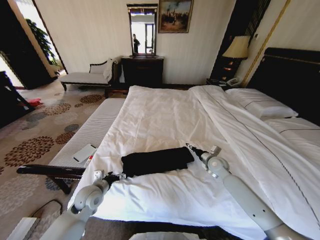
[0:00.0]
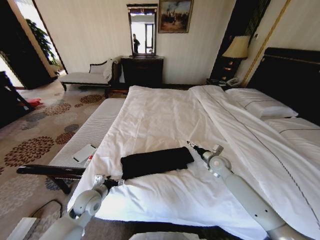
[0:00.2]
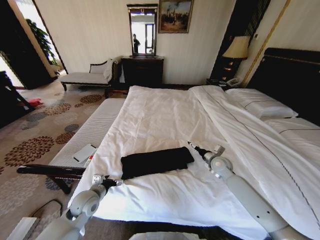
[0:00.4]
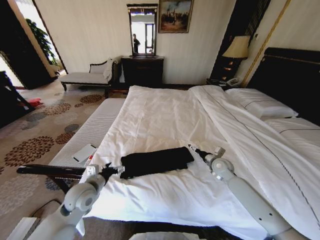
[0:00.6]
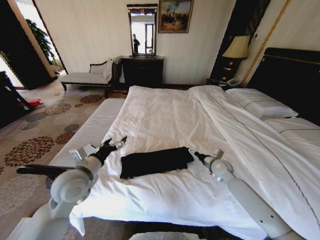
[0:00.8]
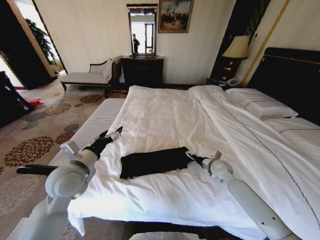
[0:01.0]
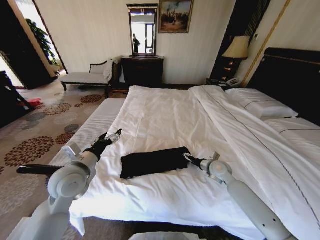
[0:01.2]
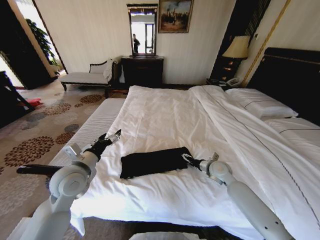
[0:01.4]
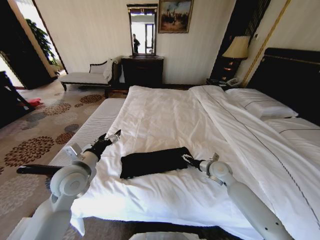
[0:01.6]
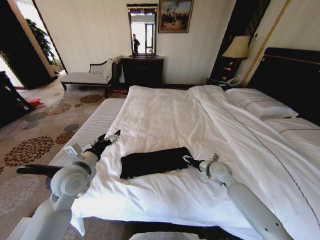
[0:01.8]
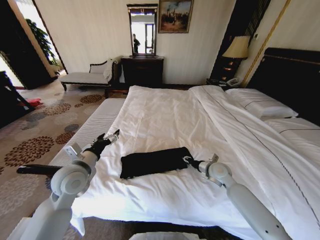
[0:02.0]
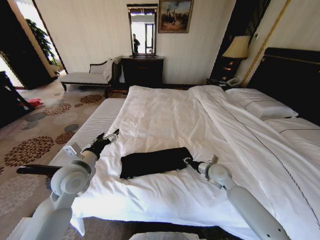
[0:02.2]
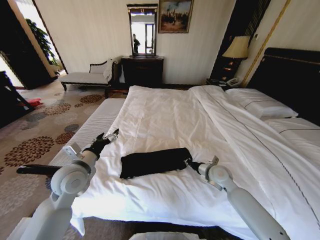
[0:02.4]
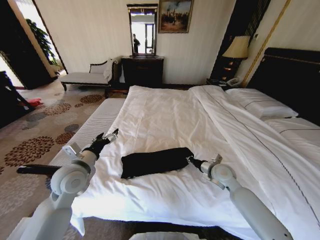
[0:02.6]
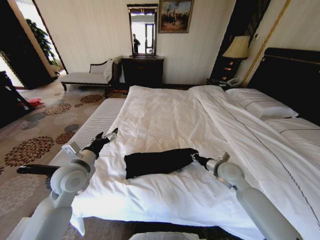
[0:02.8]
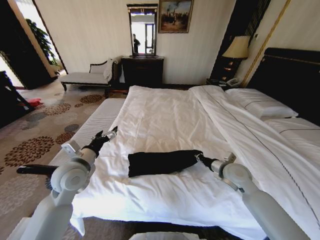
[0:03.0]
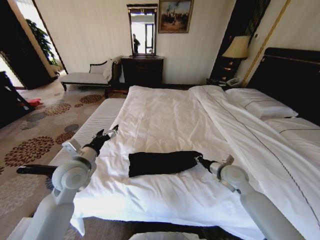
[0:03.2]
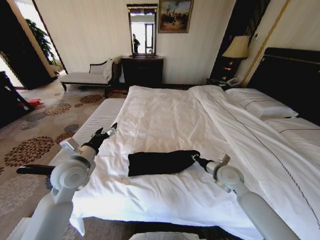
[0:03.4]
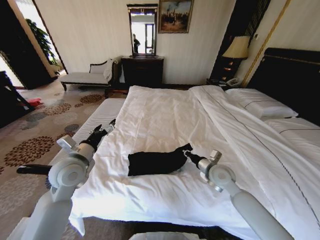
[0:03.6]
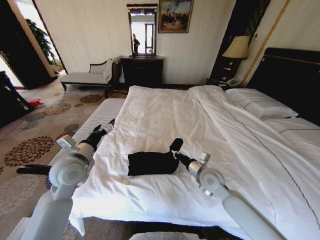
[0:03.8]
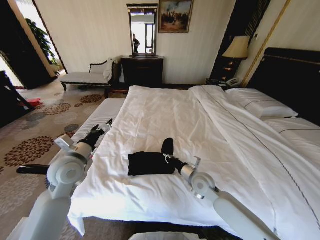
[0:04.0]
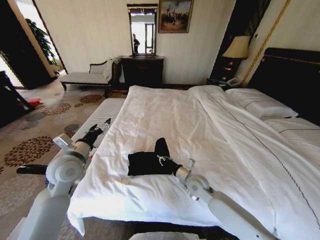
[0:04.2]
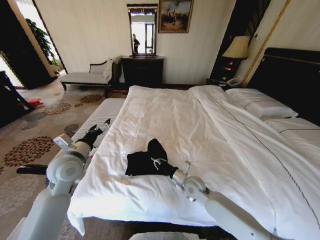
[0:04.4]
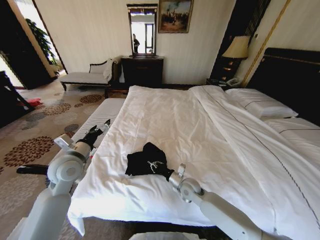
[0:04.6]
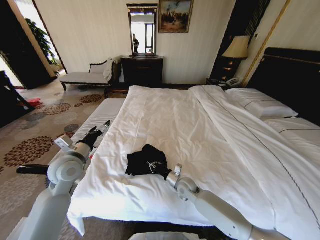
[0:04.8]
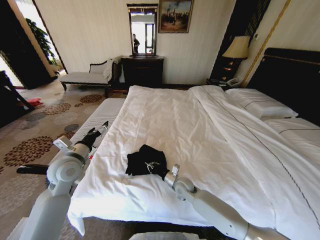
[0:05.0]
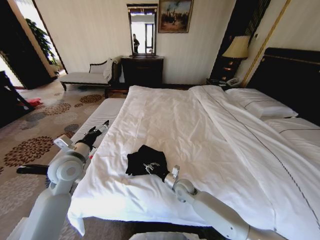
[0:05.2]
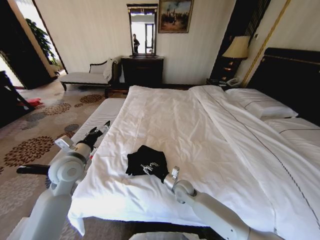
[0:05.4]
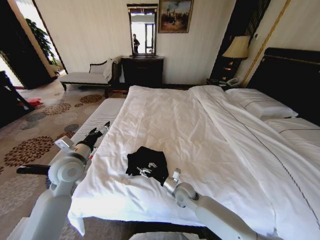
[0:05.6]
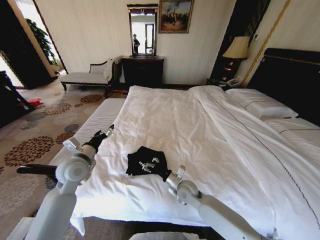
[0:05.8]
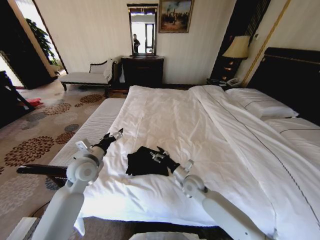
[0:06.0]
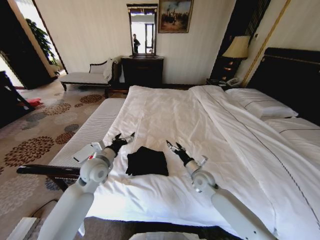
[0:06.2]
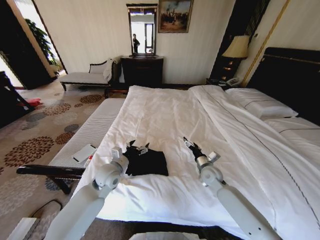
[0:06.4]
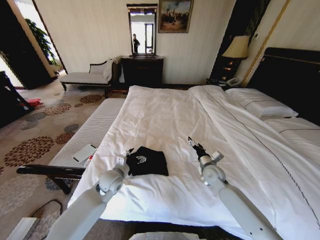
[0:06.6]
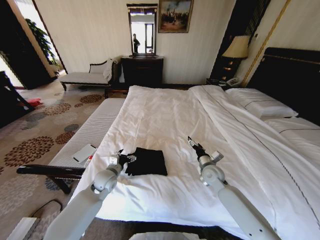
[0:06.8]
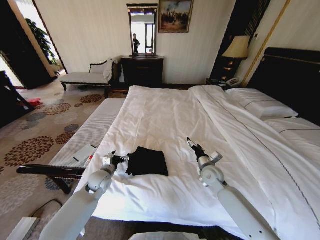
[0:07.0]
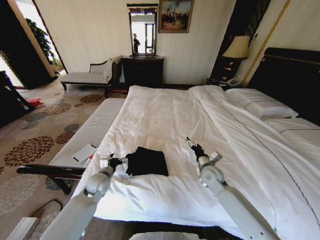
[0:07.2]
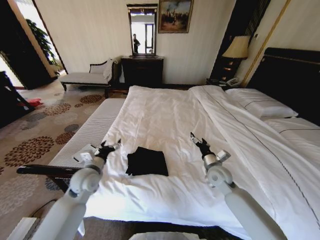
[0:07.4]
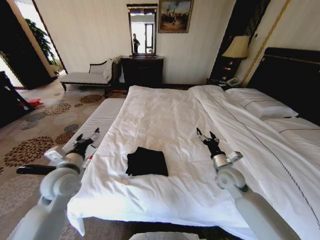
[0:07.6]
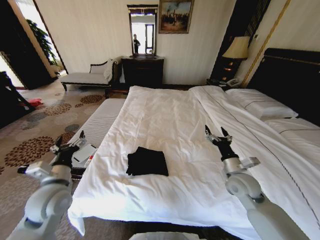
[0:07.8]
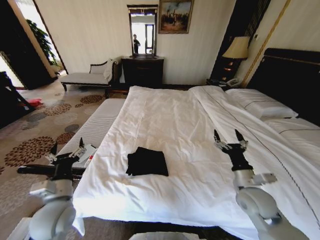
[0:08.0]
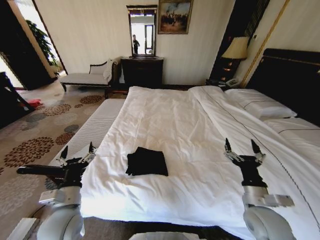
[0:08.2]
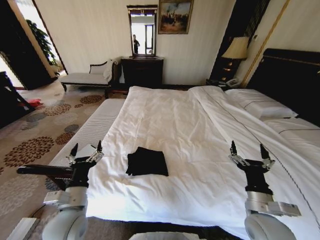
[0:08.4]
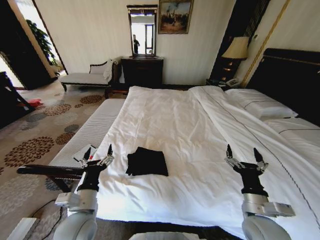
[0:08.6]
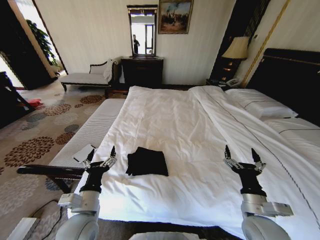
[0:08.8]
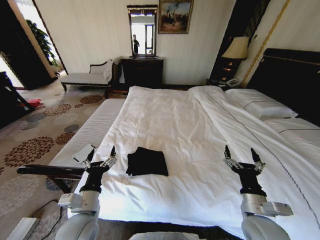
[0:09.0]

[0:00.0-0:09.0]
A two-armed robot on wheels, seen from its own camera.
Task of the whole recording: Fold the clothes on the bed.
0:00.0 to 0:01.6: The left gripper is displaced upward by approximately 15 cm.
0:01.6 to 0:03.0: The right gripper is displaced upward by about 5 cm, and closes.
0:03.0 to 0:04.4: The right gripper shifts about 20 cm to the left and downward.
0:04.4 to 0:06.0: The right gripper opens, while the left gripper moves roughly 5 cm.
0:06.0 to 0:07.6: The left gripper moves approximately 15 cm downward and comes back. Meanwhile the right gripper heads to the right and upward, covering roughly 15 cm.
0:07.6 to 0:09.0: The right gripper is displaced backward by about 20 cm; the left gripper travels backward, to the right and downward by approximately 15 cm.

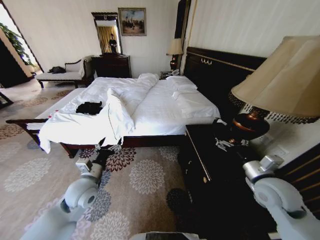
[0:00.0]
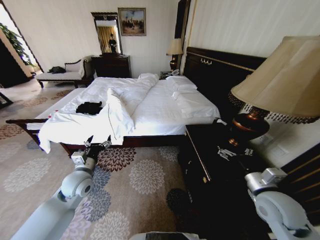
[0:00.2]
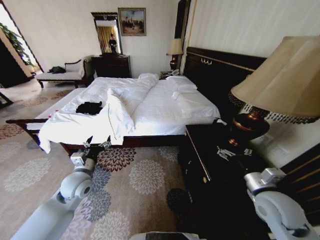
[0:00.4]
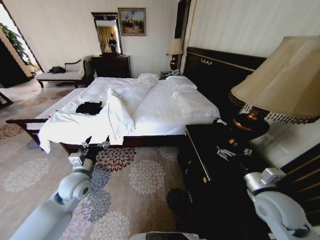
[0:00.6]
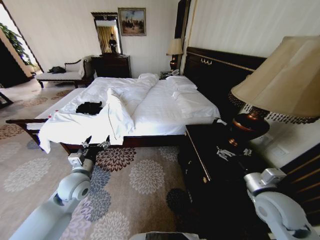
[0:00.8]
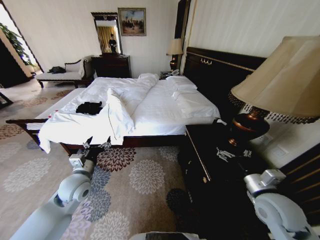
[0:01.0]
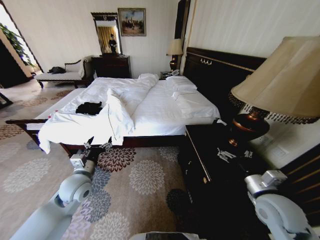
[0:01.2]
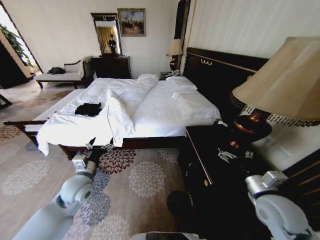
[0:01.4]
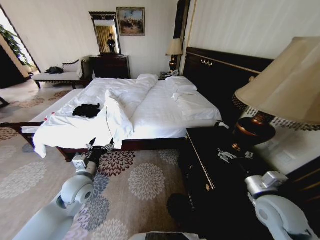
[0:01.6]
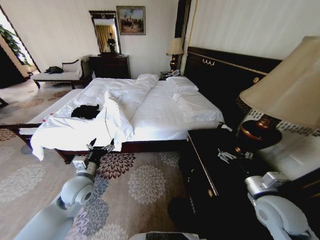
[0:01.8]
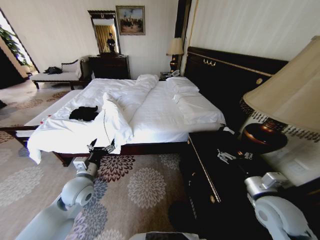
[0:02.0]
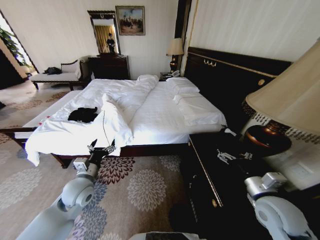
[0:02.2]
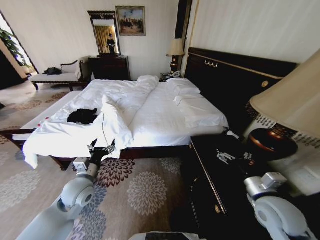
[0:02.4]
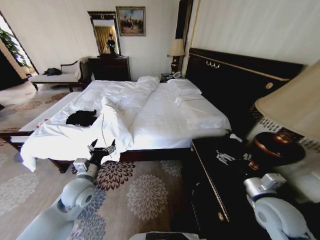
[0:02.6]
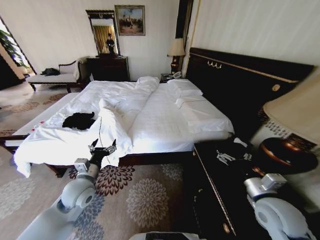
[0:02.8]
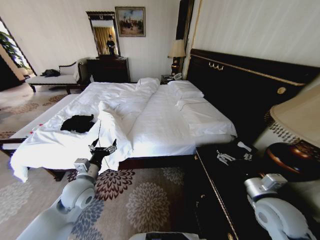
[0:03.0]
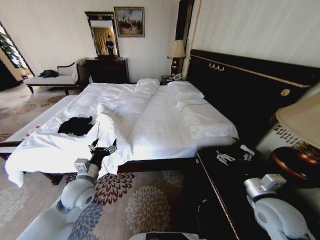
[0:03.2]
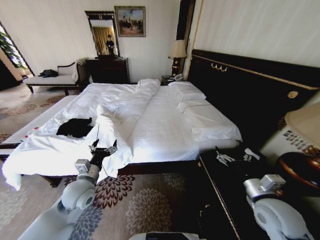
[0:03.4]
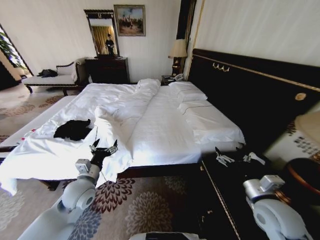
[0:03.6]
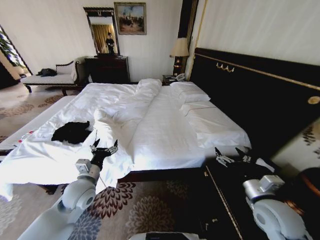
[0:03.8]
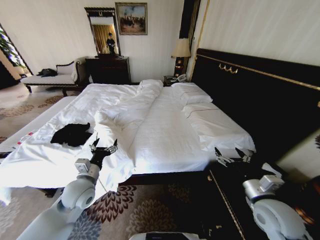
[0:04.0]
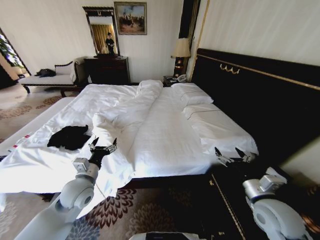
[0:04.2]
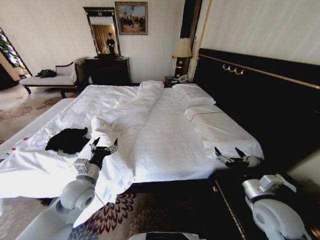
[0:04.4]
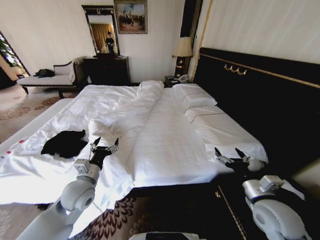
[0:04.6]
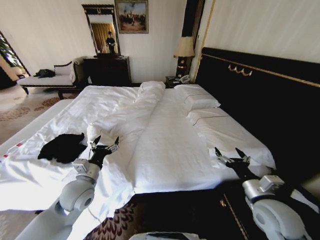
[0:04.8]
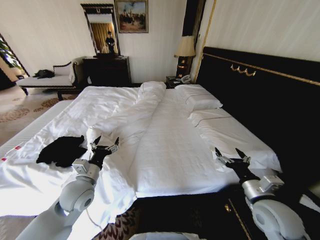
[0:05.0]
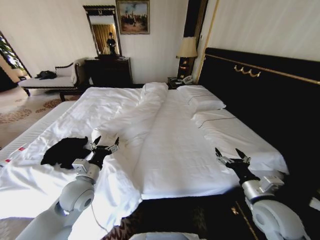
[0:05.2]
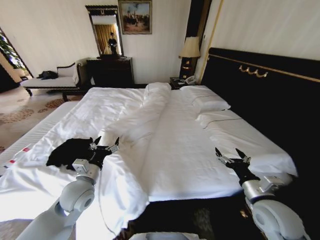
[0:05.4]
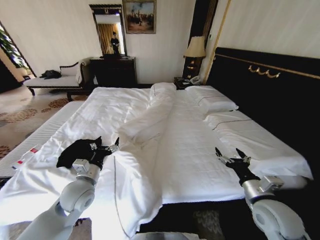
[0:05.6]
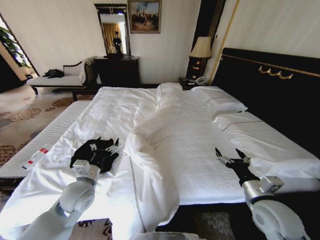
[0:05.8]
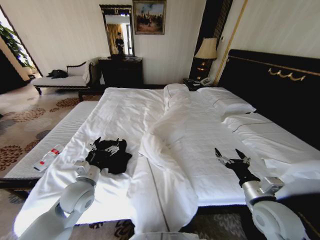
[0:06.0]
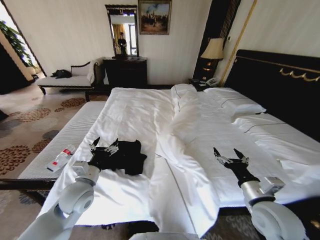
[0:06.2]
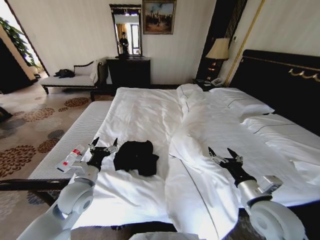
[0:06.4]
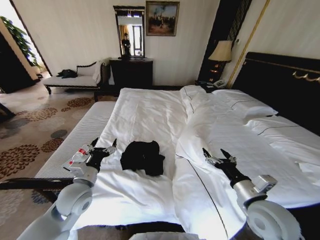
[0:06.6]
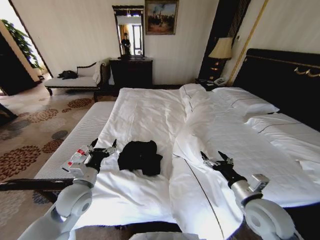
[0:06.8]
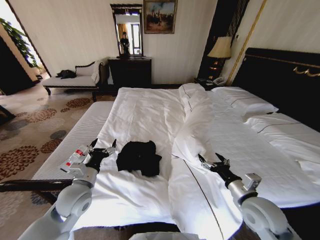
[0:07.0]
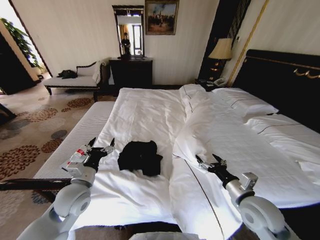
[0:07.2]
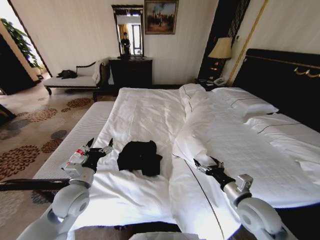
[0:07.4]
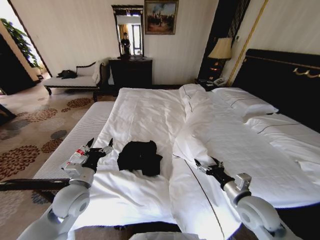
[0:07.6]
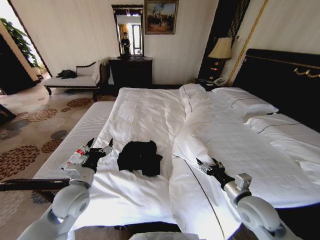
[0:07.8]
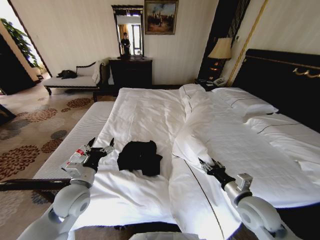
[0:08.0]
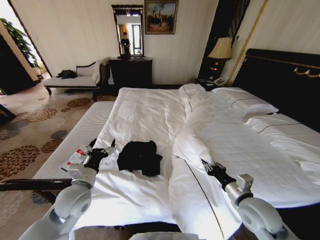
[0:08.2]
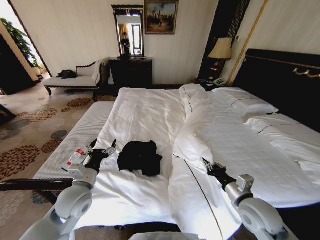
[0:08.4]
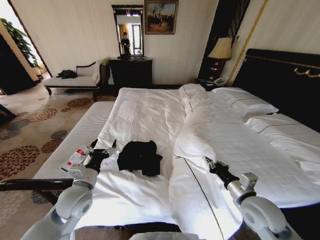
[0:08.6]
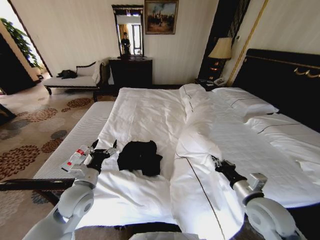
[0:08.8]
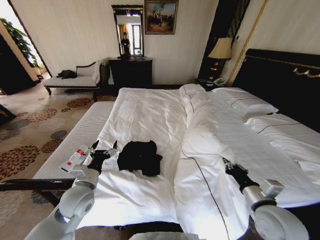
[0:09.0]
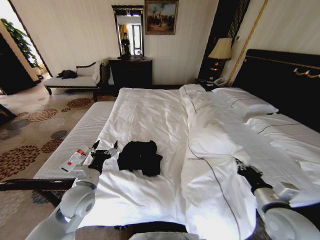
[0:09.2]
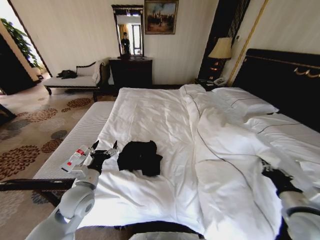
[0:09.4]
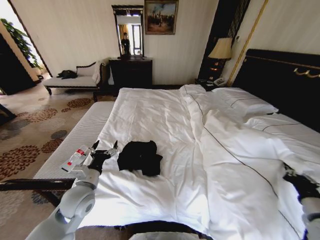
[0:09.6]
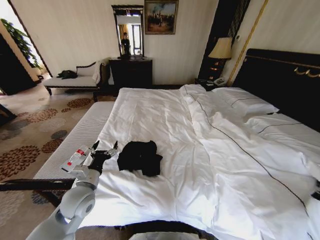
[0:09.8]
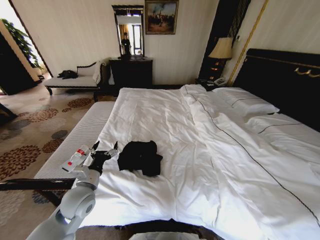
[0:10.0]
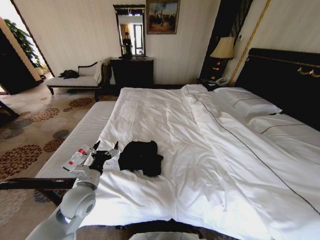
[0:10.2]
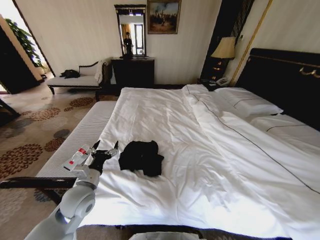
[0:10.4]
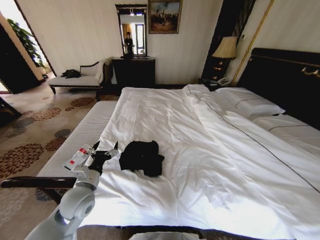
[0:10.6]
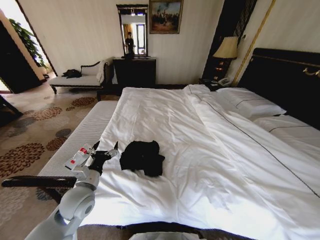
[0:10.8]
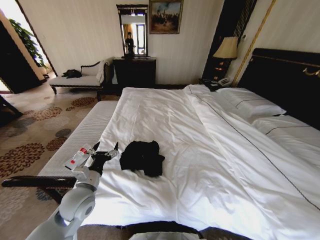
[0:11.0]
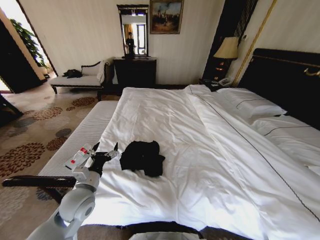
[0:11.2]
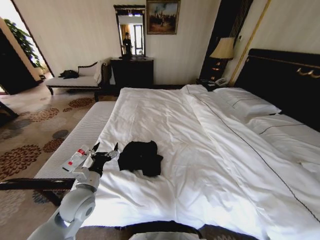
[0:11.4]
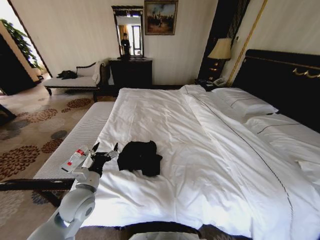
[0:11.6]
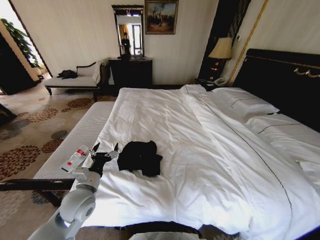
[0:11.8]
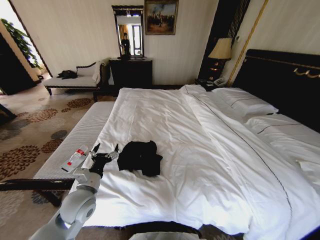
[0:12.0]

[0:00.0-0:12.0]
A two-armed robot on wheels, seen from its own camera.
Task of the whole recording: Fold the clothes on the bed.
0:07.6 to 0:09.0: The right gripper closes up.
0:09.0 to 0:10.4: The right gripper shifts roughly 30 cm to the right.
0:10.4 to 0:12.0: The right gripper goes approximately 10 cm to the left, and opens up.

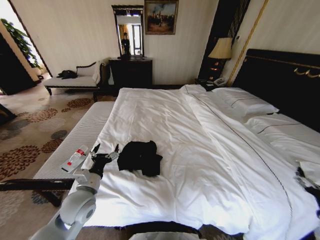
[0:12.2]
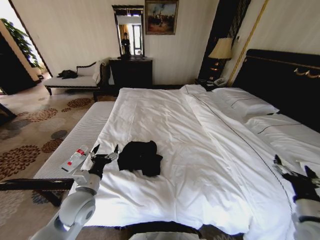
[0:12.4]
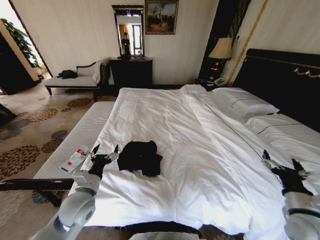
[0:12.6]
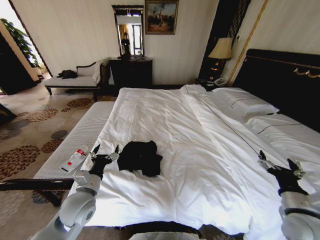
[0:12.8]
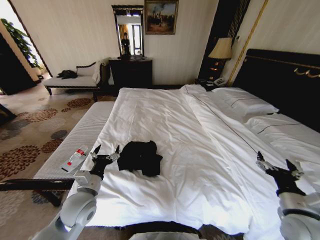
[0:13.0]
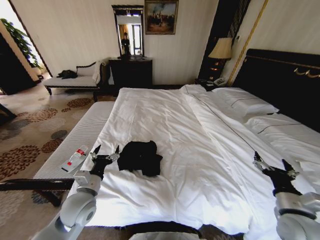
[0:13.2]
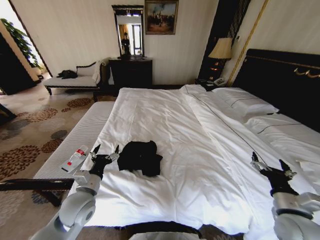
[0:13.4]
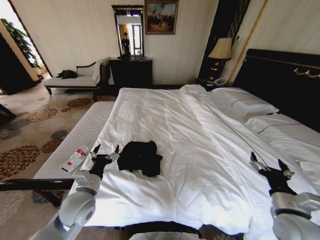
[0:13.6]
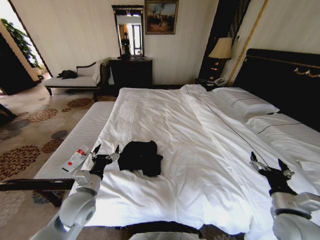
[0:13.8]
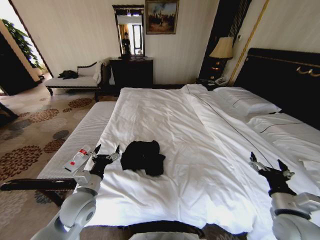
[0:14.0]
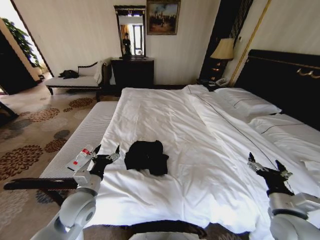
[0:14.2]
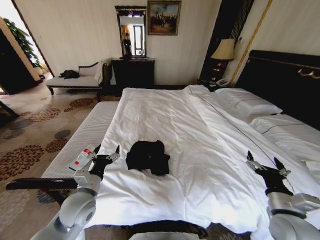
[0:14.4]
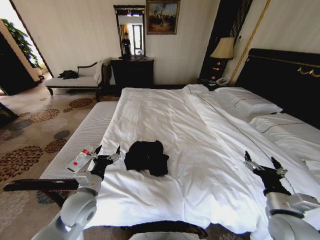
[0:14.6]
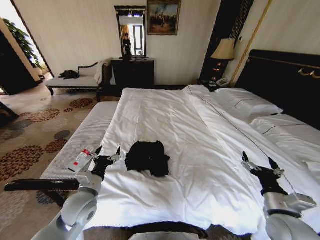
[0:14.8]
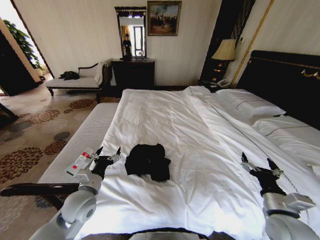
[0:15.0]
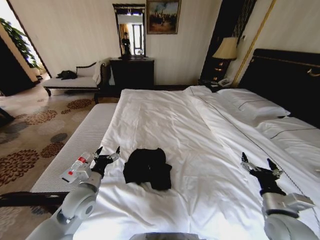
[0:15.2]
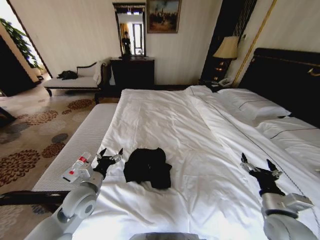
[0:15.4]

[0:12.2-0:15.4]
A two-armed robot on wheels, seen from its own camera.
Task of the whole recording: Fold the clothes on the bed.
0:12.2 to 0:13.8: The right gripper moves to the left and forward, approximately 10 cm.
